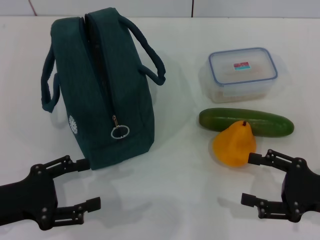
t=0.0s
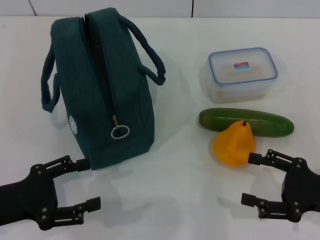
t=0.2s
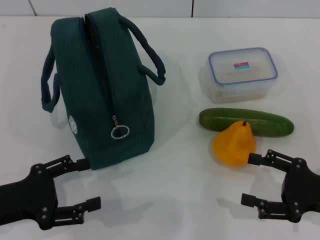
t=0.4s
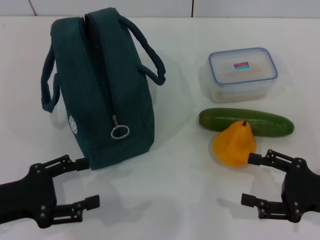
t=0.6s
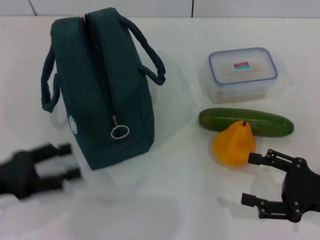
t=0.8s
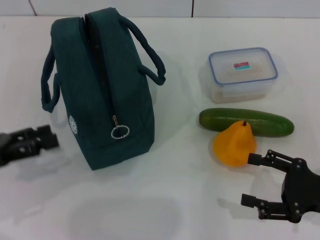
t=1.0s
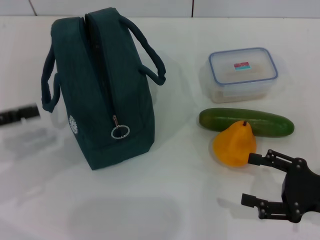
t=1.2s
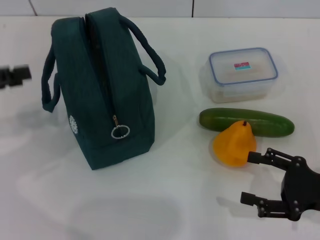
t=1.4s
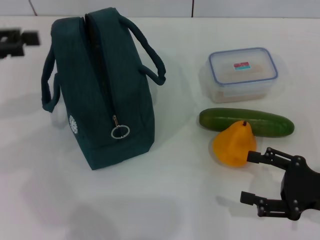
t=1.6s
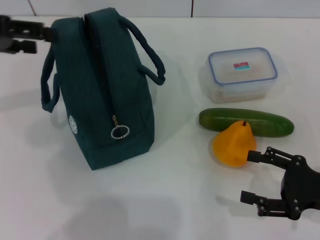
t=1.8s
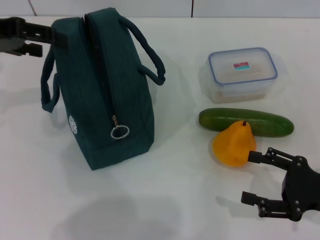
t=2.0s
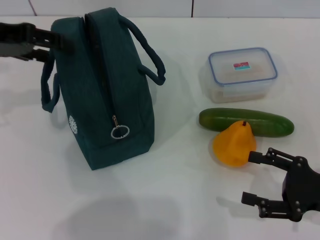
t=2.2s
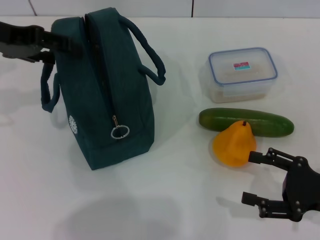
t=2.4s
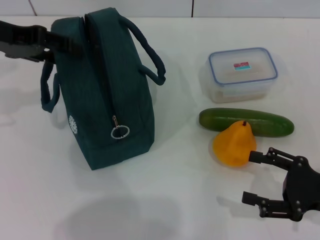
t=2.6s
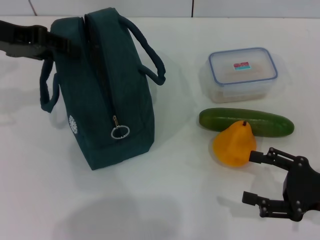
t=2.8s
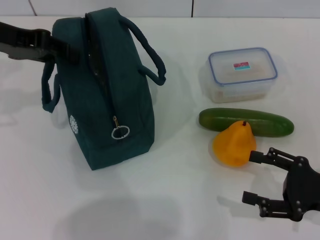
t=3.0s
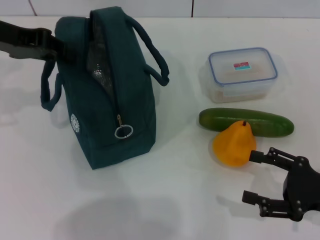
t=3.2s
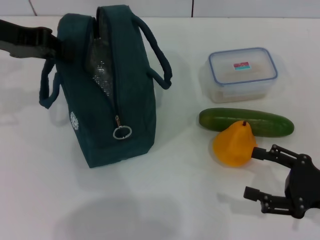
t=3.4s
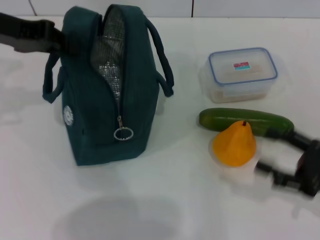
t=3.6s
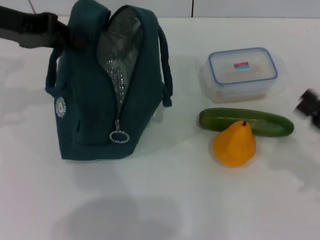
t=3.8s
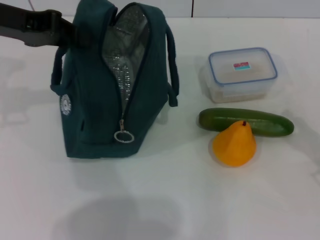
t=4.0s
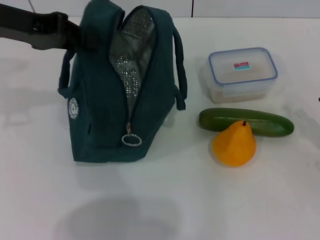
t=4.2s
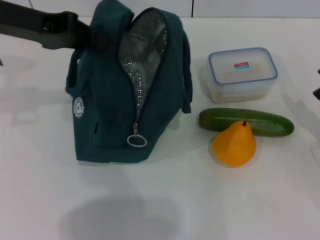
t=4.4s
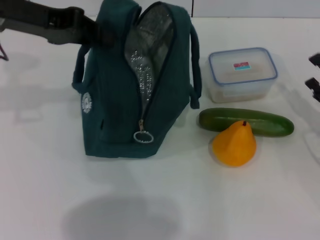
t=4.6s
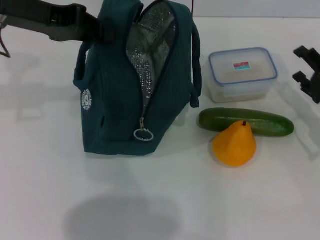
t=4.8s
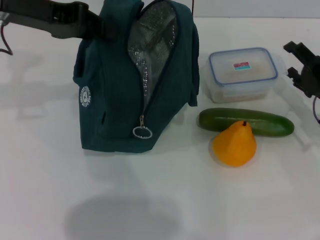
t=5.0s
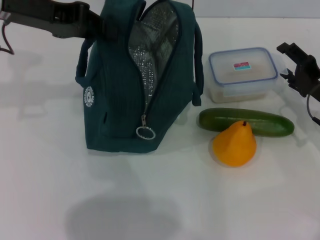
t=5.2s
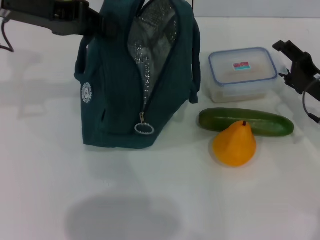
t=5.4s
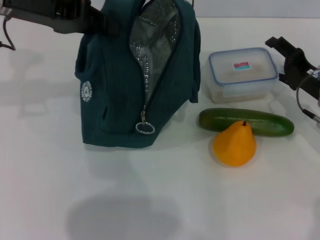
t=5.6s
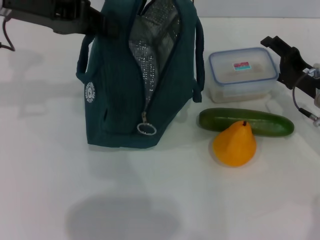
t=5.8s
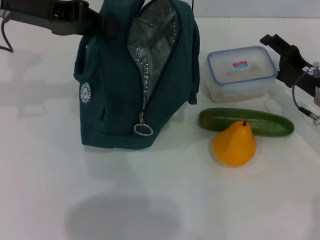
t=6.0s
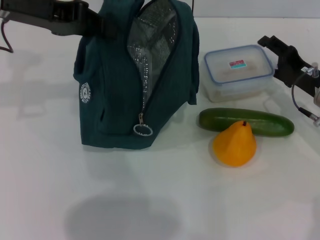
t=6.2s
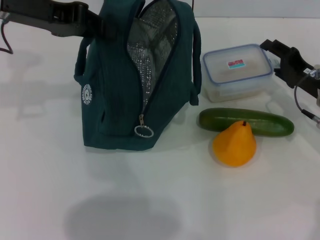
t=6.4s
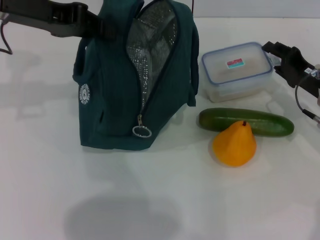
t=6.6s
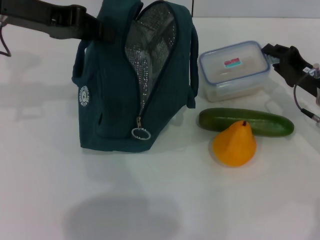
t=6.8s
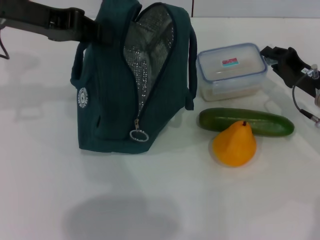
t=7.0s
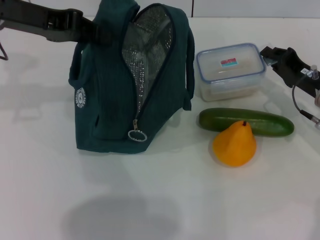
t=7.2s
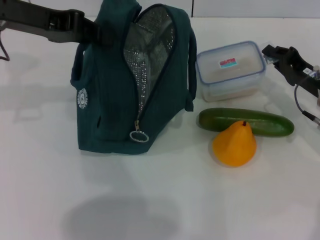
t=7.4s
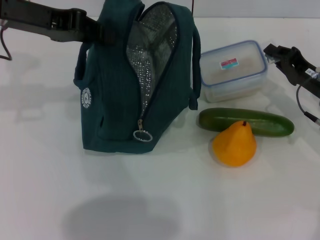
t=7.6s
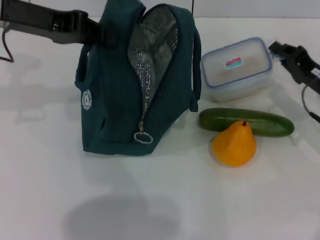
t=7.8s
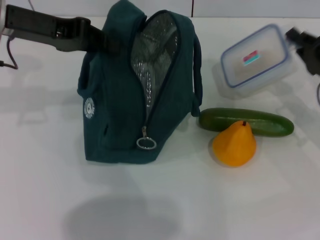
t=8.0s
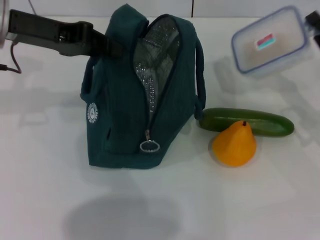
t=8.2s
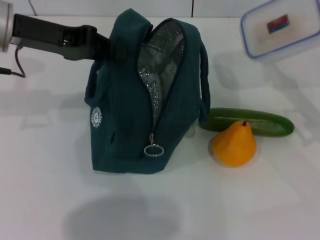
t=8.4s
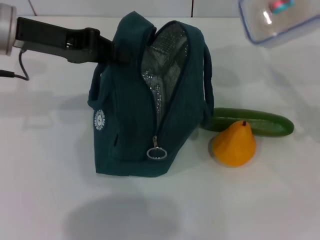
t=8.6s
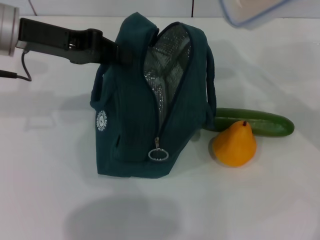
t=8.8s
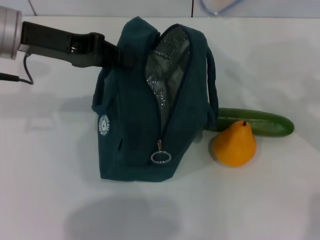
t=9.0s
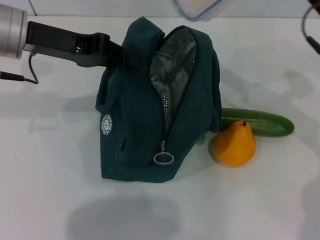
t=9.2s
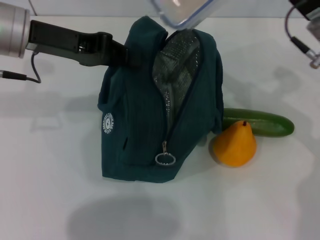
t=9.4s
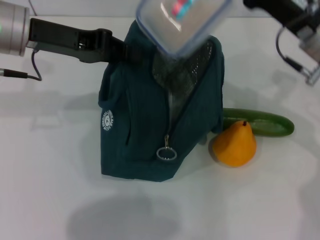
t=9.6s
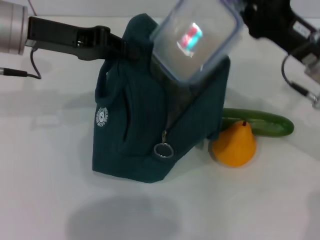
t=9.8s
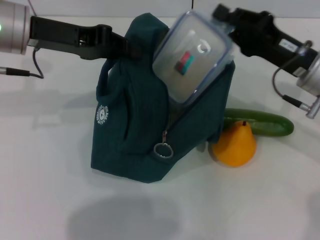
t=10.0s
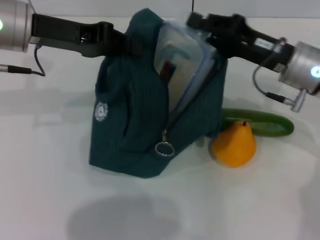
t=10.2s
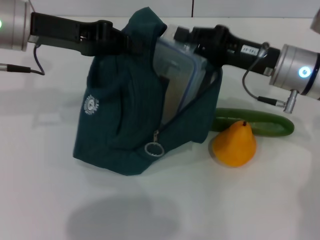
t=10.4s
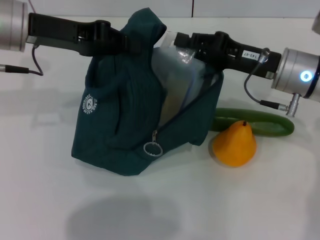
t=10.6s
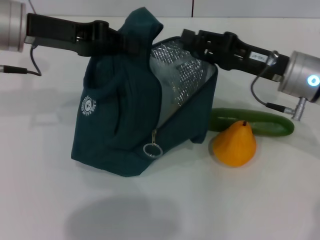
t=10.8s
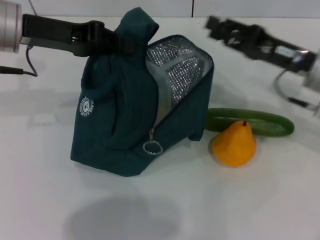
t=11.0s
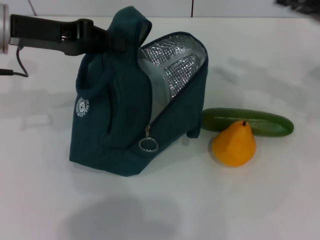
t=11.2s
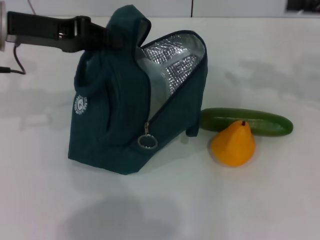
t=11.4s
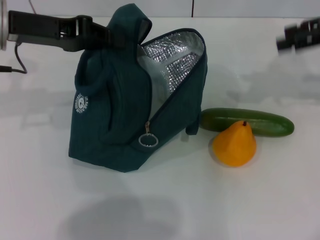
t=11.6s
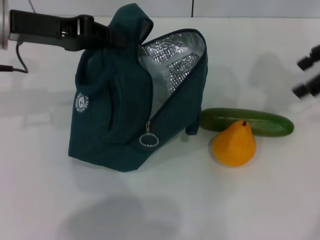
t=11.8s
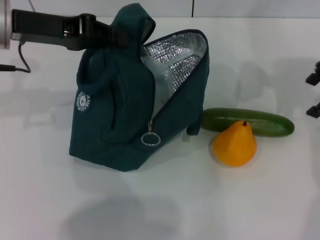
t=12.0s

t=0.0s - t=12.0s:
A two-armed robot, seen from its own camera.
Step, t=0.0s - t=4.0s: Hold the lunch bag with your left hand.
Step, t=4.2s - t=7.2s: Pick up the lunch box with your right hand.
Step, t=7.6s - t=11.2s: Place the lunch box into the lunch bag with your right hand.
t=0.0s - t=1.6s: The left gripper is displaced upward and forward by approximately 20 cm.
t=1.6s - t=3.0s: The left gripper travels to the right and forward by about 10 cm, and closes.
t=3.0s - t=4.4s: The right gripper moves some 5 cm; the left gripper closes.
t=4.4s - t=6.0s: The right gripper shifts some 15 cm forward and to the left.
t=6.0s - t=7.6s: The right gripper closes.
t=7.6s - t=9.0s: The right gripper shifts about 10 cm upward.
t=9.0s - t=10.4s: The right gripper is displaced to the left by approximately 5 cm.
t=10.4s - t=12.0s: The right gripper goes some 15 cm upward and to the right, and opens.

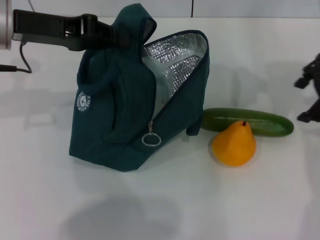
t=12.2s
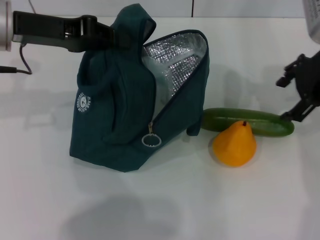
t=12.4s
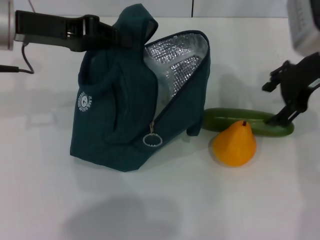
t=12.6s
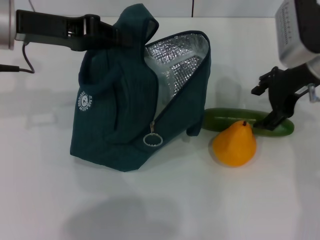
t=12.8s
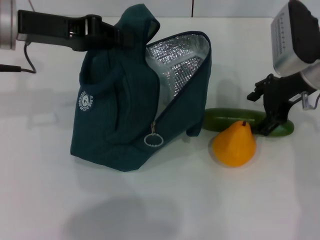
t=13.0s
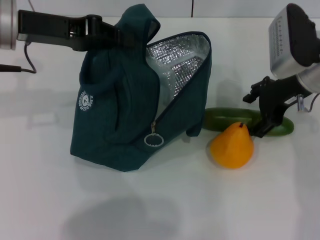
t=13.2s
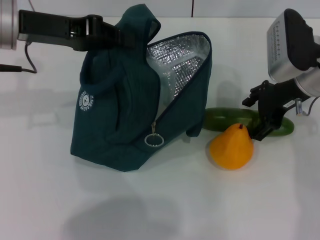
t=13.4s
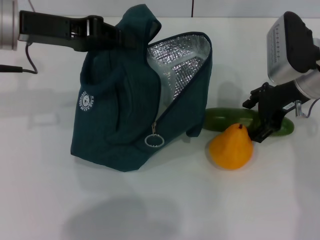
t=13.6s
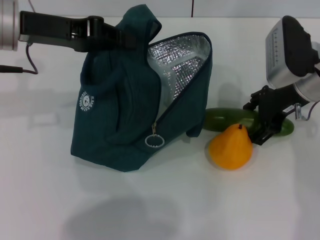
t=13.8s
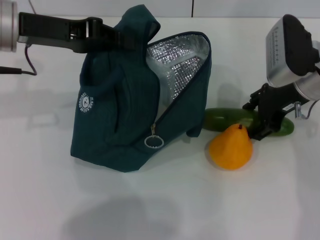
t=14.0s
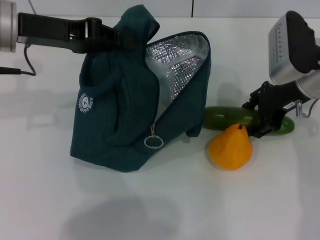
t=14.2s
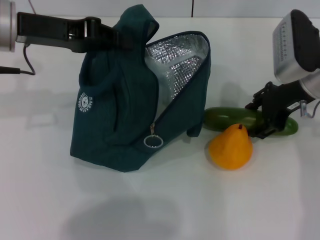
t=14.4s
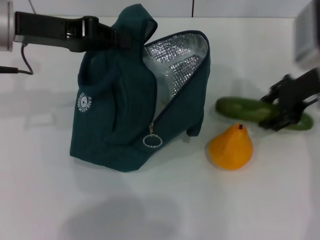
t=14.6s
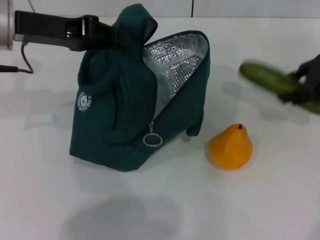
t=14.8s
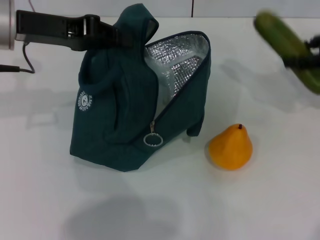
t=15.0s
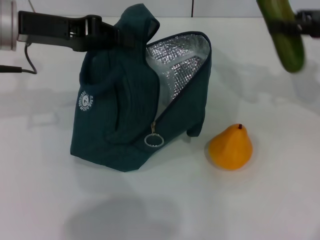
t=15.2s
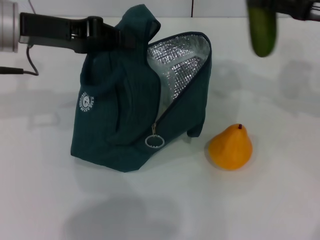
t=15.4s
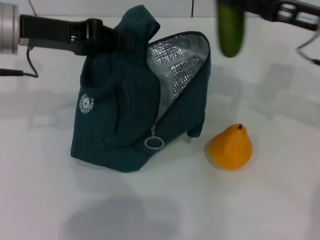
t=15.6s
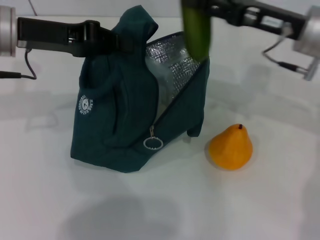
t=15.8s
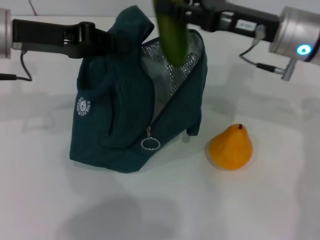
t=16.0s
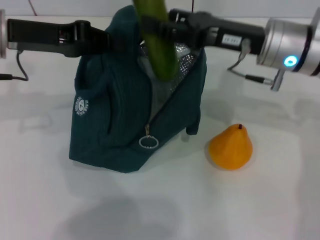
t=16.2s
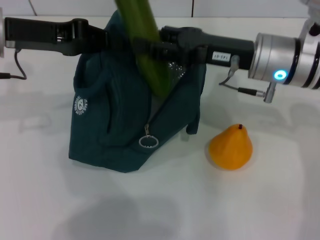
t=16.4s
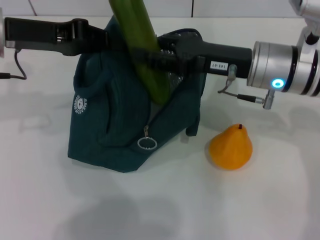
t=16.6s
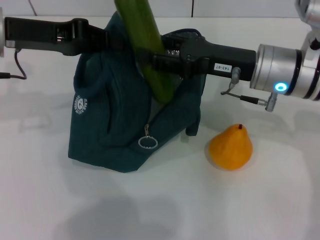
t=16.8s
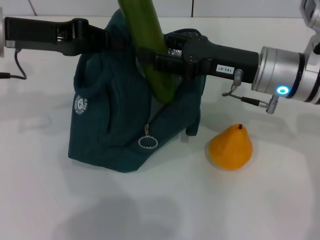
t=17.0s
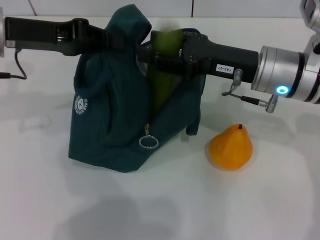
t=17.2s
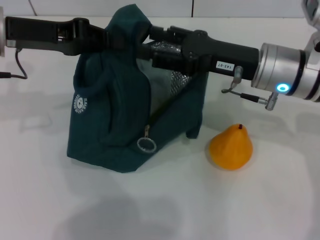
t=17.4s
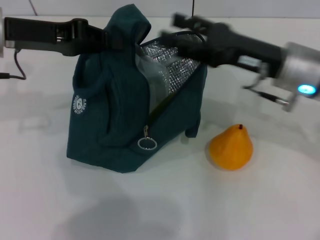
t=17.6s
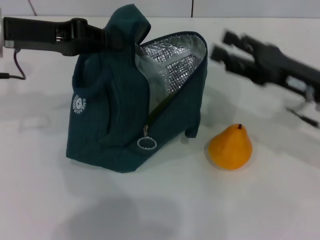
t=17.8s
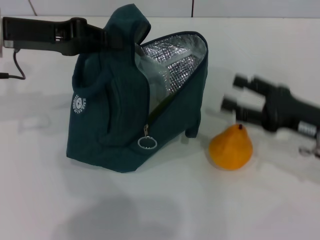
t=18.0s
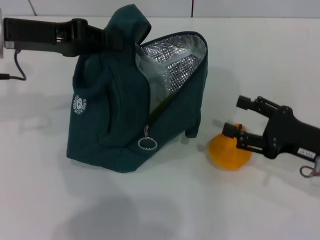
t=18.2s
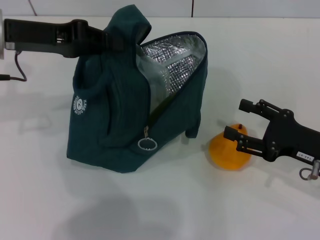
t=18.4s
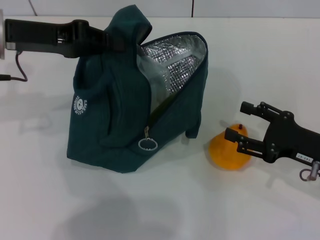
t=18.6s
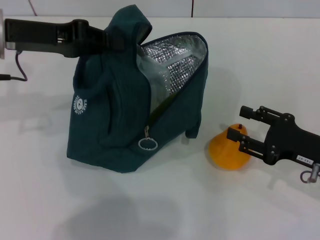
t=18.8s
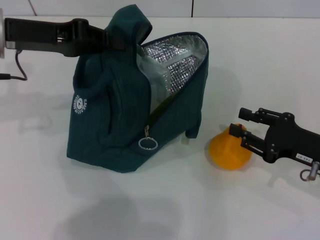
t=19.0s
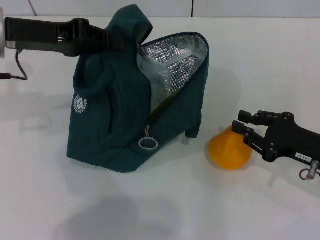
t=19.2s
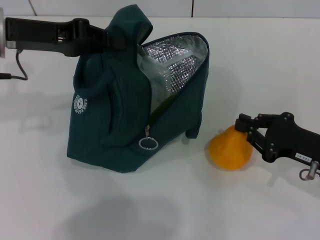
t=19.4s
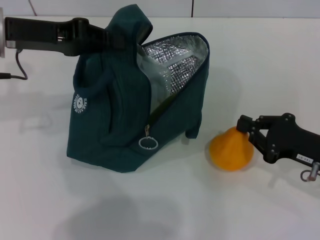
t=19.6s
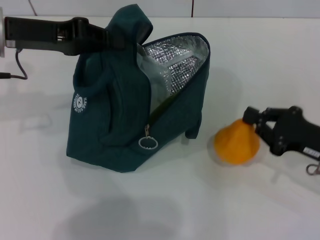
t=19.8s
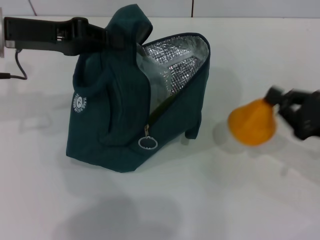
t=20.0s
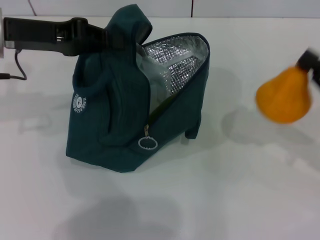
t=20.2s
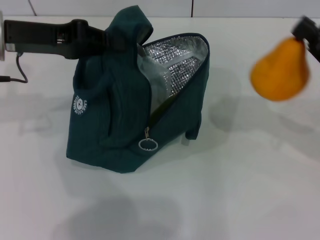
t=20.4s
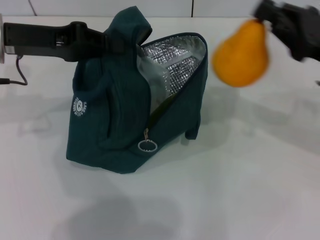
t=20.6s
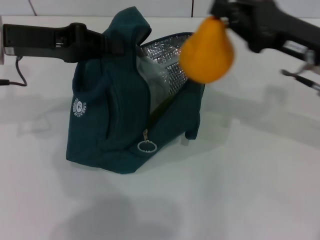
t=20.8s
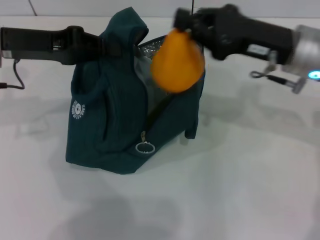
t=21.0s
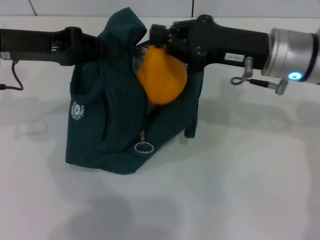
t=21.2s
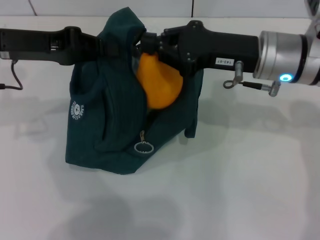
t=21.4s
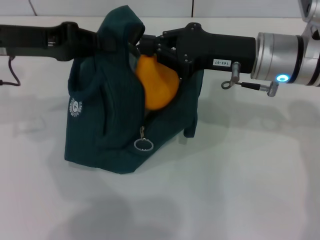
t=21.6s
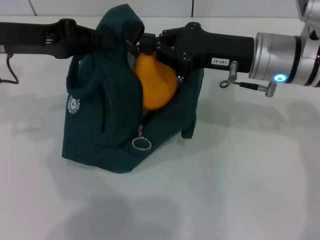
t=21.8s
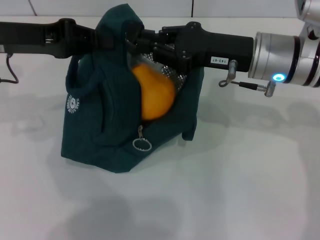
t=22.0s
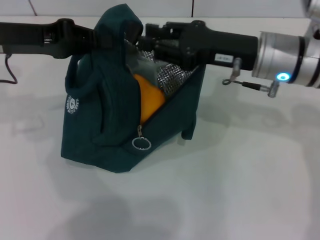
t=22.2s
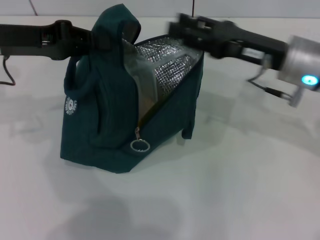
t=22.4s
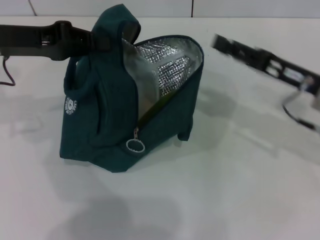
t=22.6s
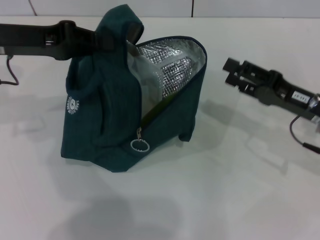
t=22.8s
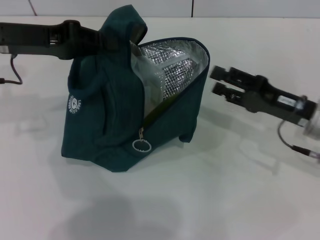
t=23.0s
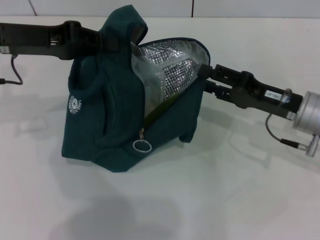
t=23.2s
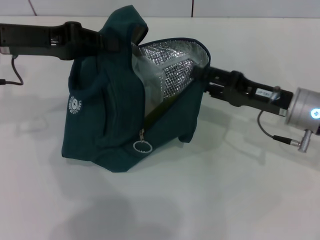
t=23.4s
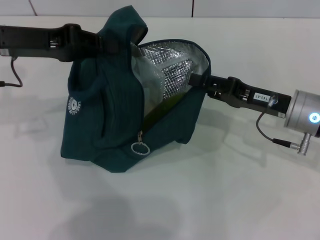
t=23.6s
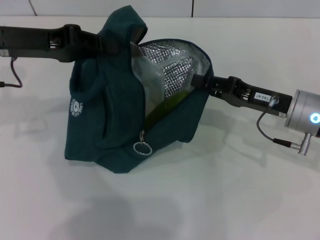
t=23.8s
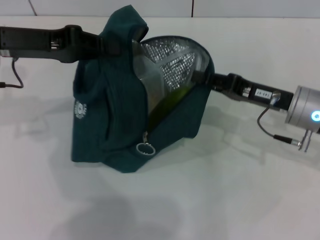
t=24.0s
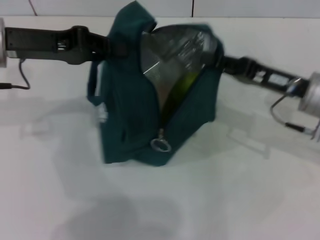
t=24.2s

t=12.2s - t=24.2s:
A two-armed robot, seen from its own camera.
Step, t=12.2s - t=14.0s: Pick up the cucumber with your right hand.
Step, t=14.2s - t=17.4s: Put the cucumber into the lunch bag with your right hand.
Step, t=17.8s - t=19.2s: Grab the pear with your right hand.
t=12.2s - t=13.8s: The right gripper moves downward, some 10 cm.
t=13.8s - t=15.2s: The right gripper is displaced to the right and upward by about 15 cm.
t=15.2s - t=16.6s: The right gripper moves to the left, about 15 cm.
t=16.6s - t=18.2s: The right gripper heads to the right, backward and downward, covering roughly 20 cm.
t=18.2s - t=19.8s: The right gripper closes its fingers.
t=19.8s - t=21.2s: The right gripper is displaced to the left, upward and forward by roughly 20 cm.
t=21.2s - t=22.6s: The right gripper travels to the right and downward by roughly 10 cm, and opens.
t=22.6s - t=24.2s: The right gripper closes its fingers.
